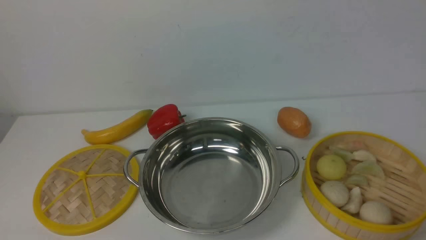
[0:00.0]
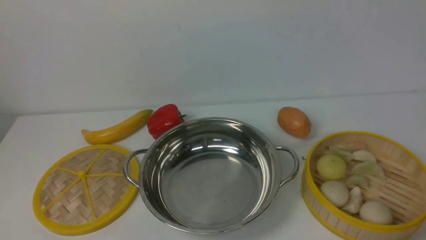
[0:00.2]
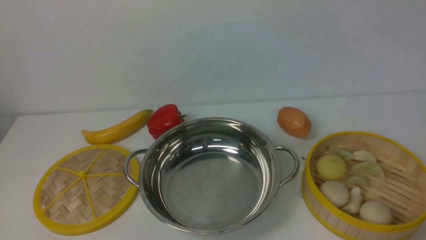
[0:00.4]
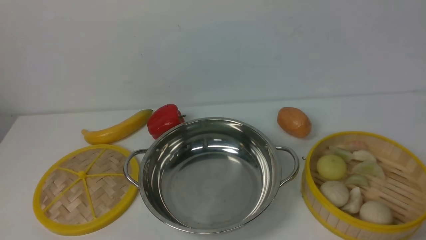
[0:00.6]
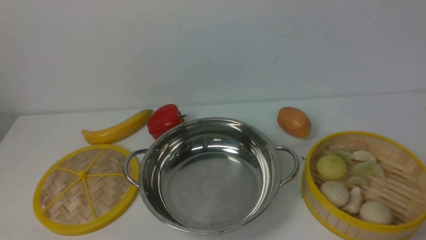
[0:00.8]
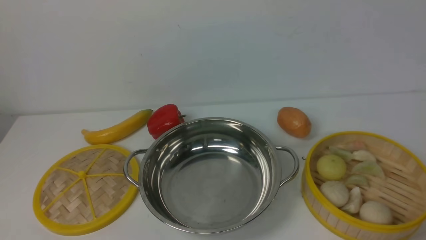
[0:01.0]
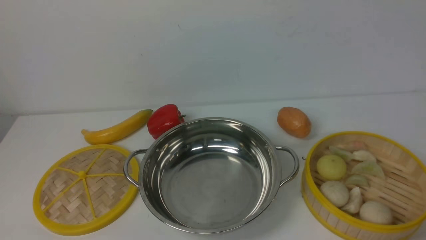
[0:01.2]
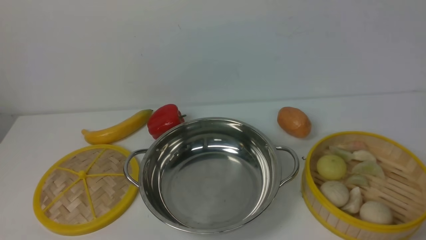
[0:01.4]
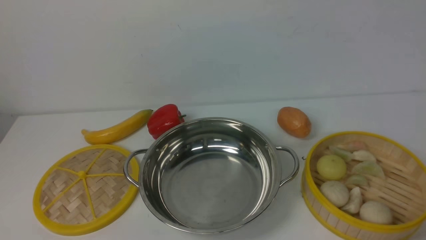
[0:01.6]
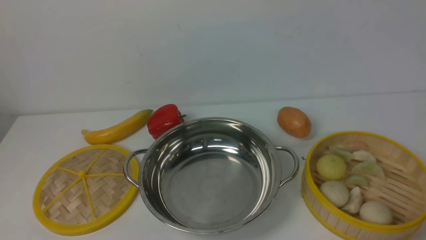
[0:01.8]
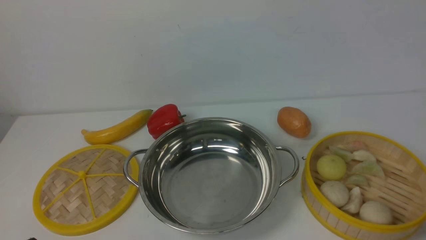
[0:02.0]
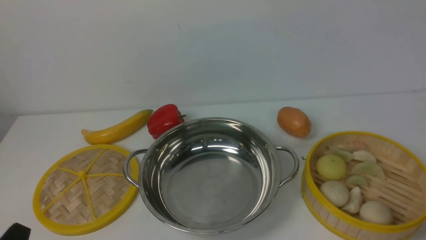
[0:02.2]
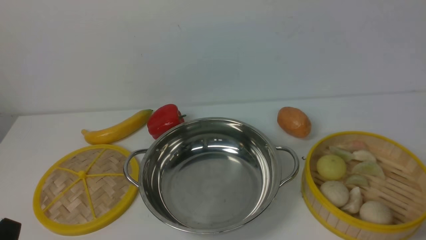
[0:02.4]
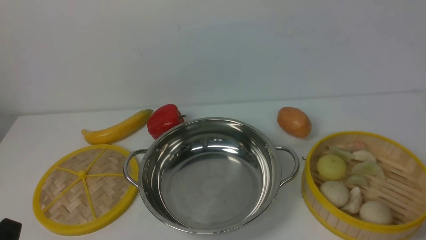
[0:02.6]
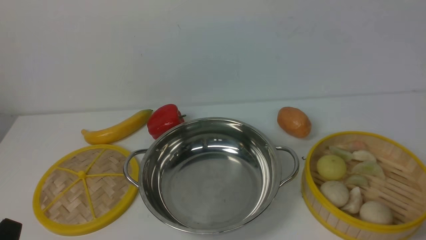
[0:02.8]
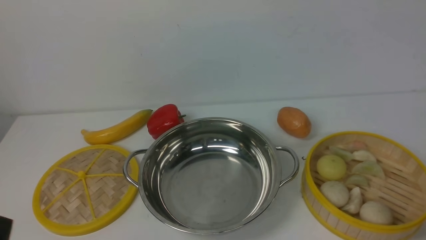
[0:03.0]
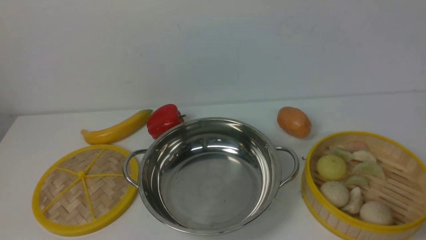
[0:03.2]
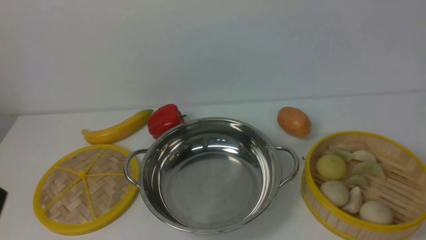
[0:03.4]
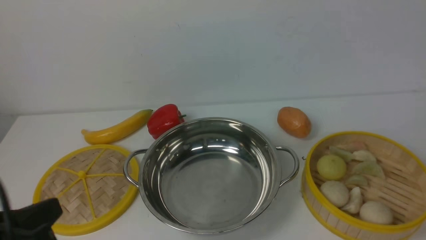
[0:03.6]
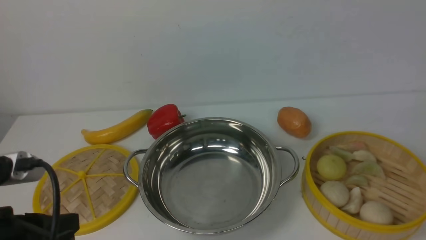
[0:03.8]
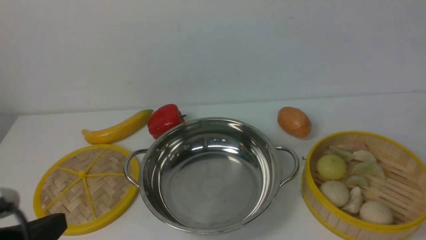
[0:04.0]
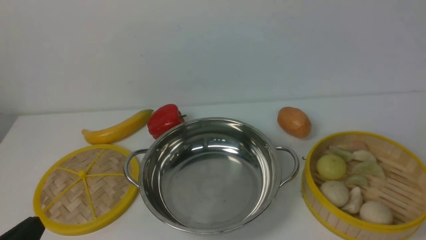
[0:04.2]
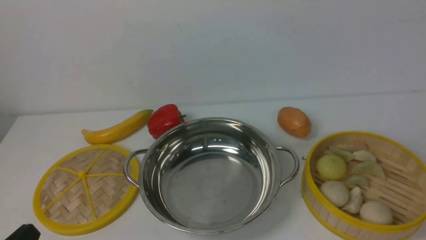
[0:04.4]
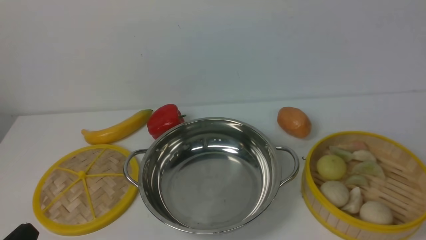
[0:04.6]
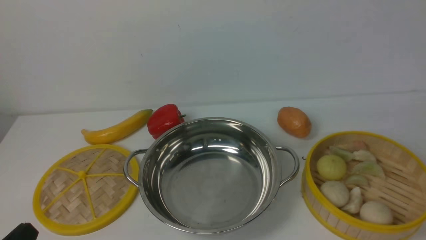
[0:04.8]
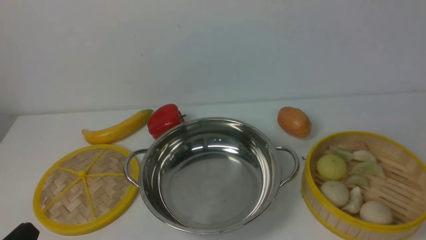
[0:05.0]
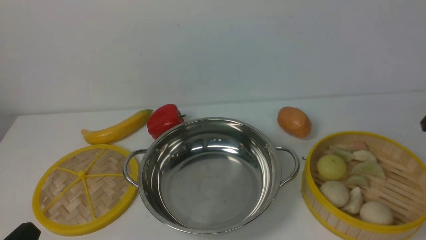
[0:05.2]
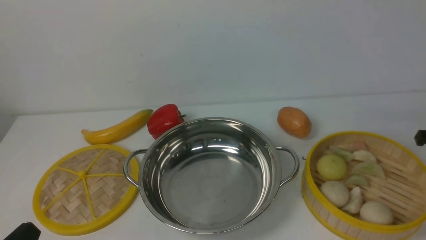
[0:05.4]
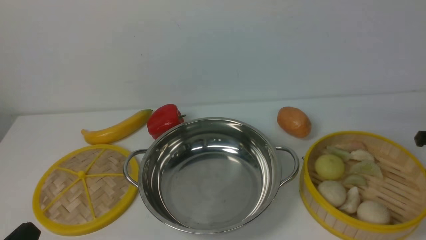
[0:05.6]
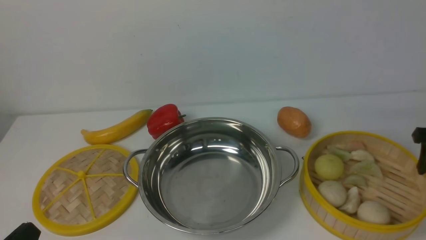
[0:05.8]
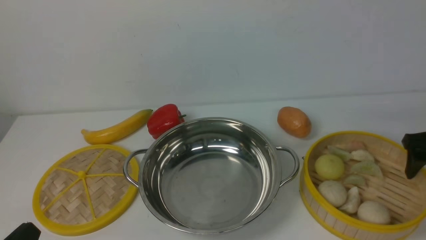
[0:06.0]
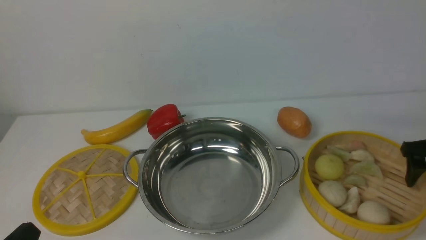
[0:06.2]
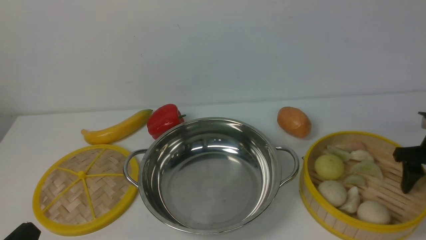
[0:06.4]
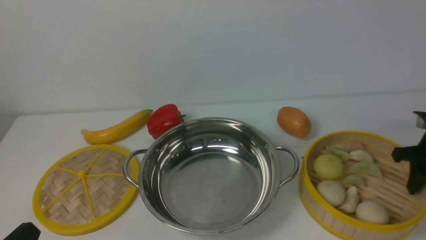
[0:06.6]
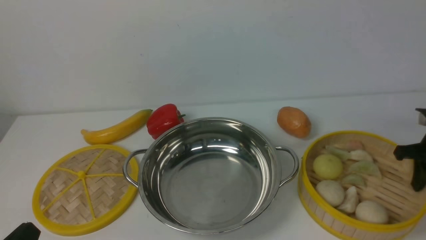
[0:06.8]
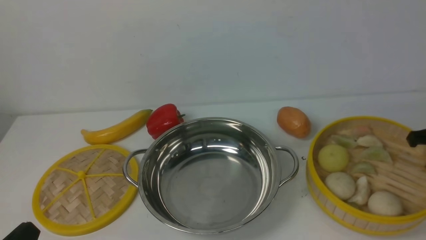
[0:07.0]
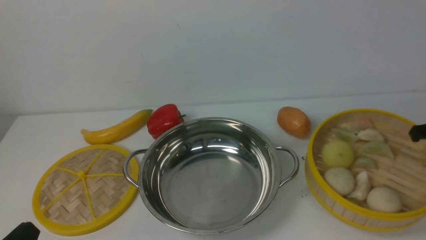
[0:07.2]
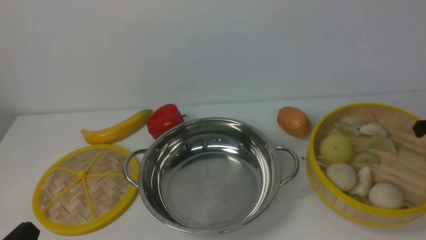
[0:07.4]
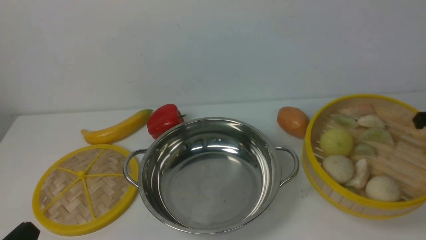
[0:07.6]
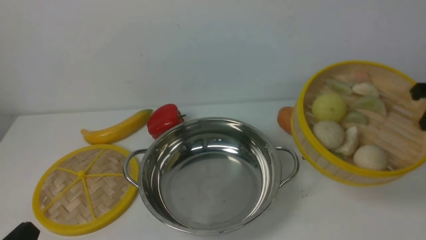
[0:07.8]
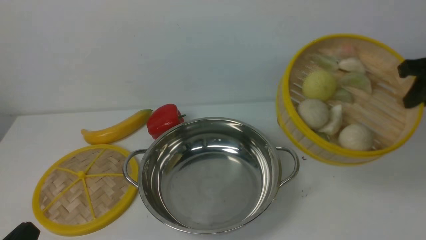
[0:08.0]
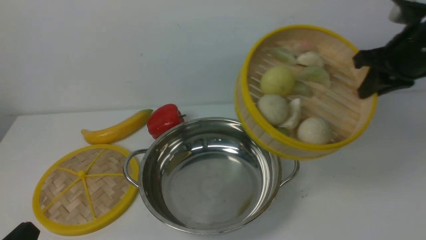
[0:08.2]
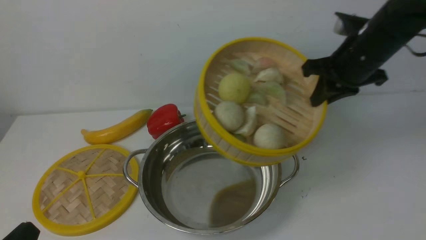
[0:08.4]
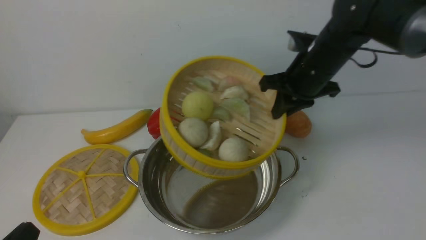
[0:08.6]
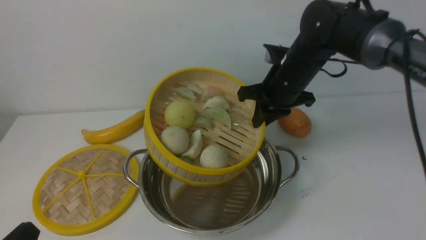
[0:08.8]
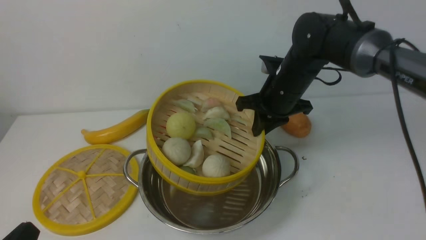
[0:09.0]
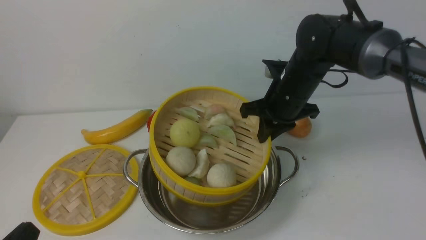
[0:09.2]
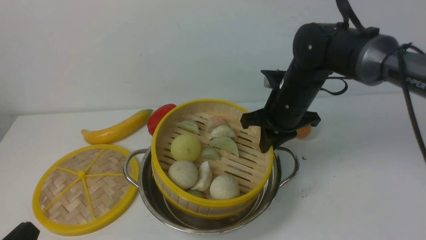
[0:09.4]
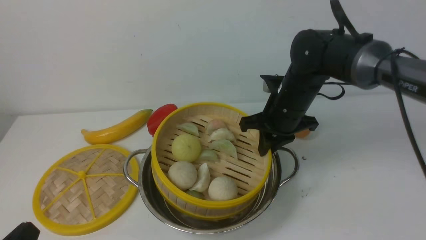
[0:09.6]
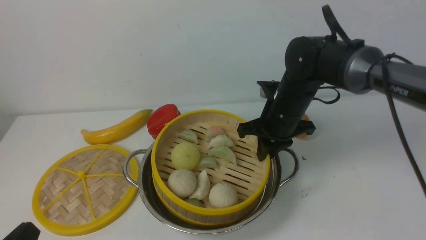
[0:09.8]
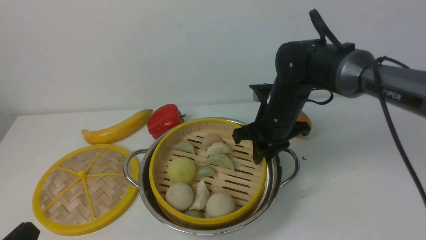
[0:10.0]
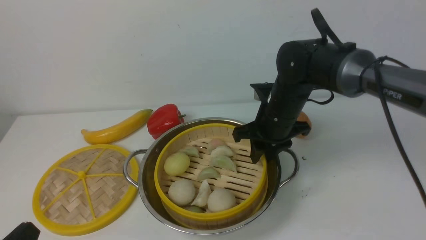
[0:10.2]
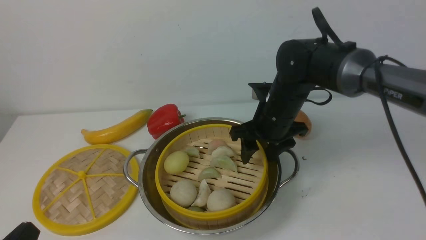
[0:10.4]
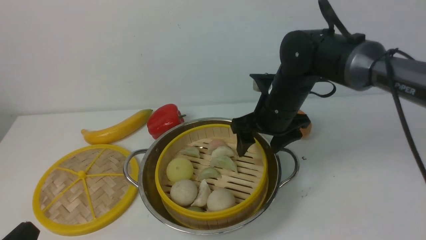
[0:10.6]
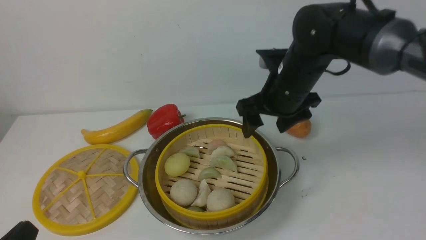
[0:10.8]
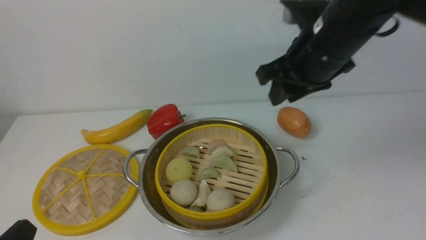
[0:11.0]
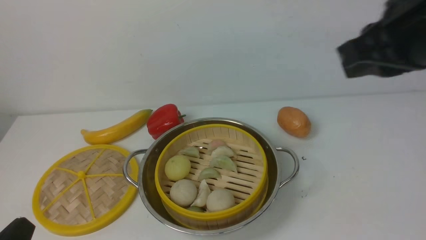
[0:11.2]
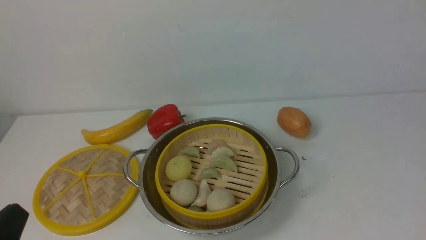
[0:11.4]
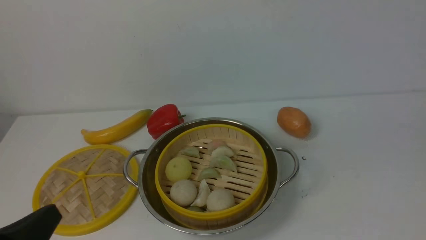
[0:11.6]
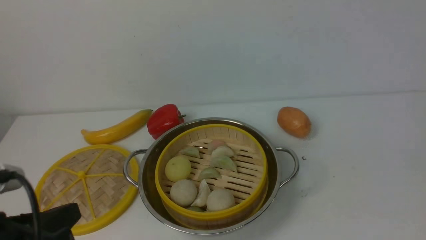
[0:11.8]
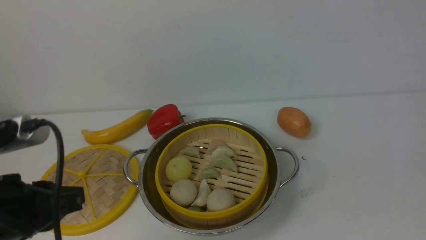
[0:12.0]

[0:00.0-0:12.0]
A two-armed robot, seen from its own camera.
Task of the whole recording: place the steamer in the pot on the white table, and put the lid on the steamer.
Step, 0:00.0 to 0:07.6: use the right arm to lift the steamer closest to it.
Step, 0:08.0 to 0:10.8: use the right arm to put the steamer into the iron steamer pot in the middle.
0:00.0 to 0:01.6: Neither gripper changes place.
0:04.4 to 0:06.0: The right gripper heads forward and downward, covering about 25 cm, and opens its fingers.
0:06.0 to 0:07.6: The right gripper goes roughly 5 cm upward, and closes its fingers.
0:07.6 to 0:09.0: The right gripper shifts roughly 25 cm to the left.
0:09.0 to 0:10.4: The right gripper opens its fingers.
0:10.4 to 0:12.0: The left gripper moves forward and upward, approximately 10 cm. Meanwhile the right gripper heads backward and to the right, covering roughly 40 cm, and closes its fingers.

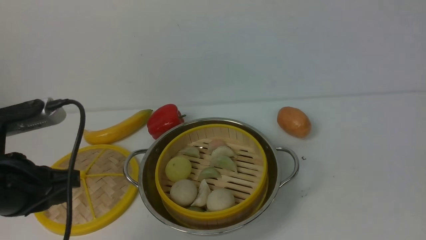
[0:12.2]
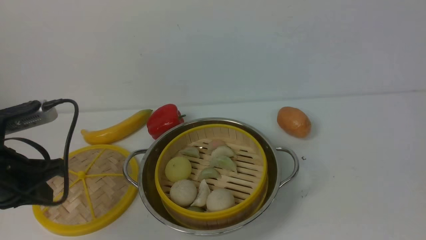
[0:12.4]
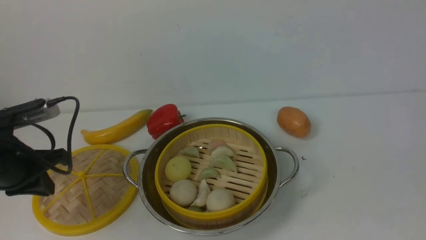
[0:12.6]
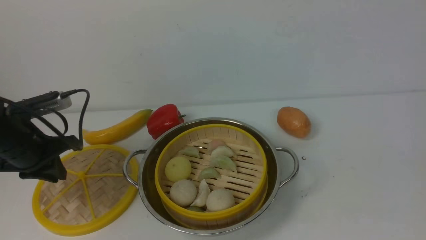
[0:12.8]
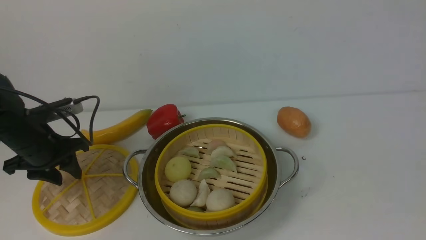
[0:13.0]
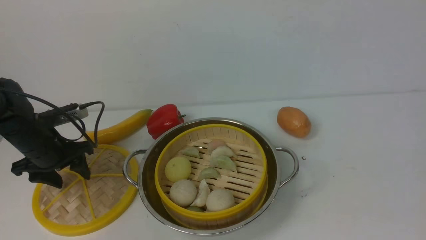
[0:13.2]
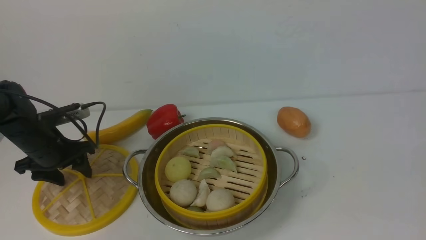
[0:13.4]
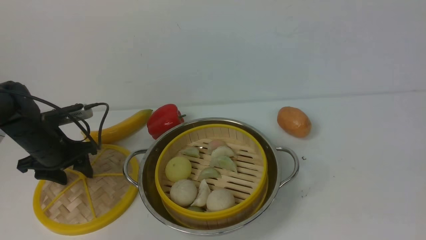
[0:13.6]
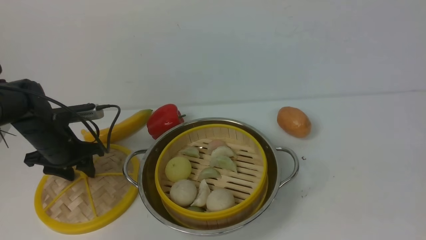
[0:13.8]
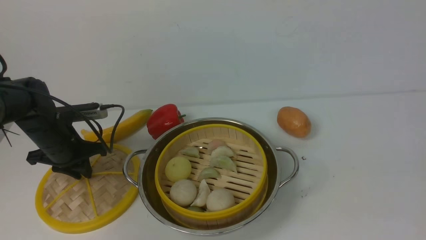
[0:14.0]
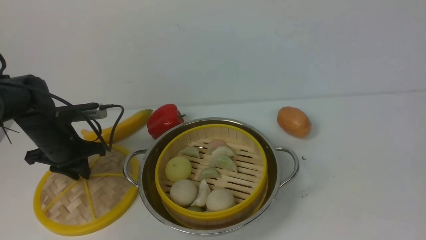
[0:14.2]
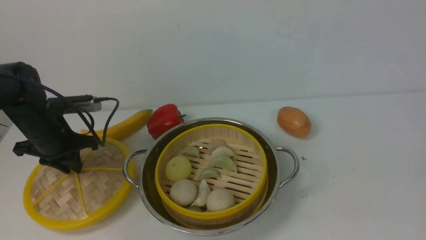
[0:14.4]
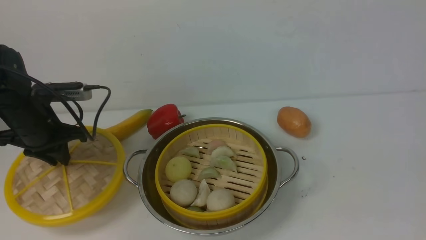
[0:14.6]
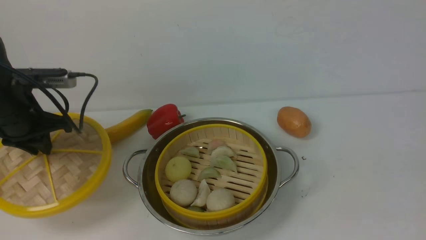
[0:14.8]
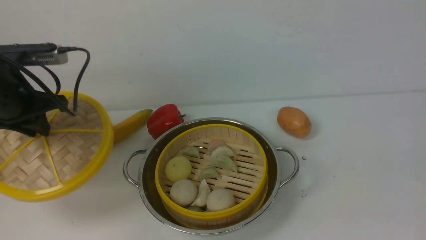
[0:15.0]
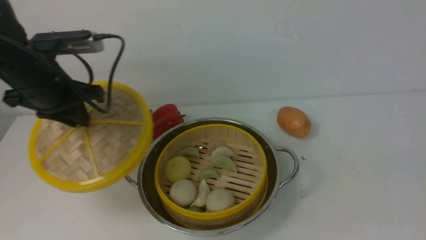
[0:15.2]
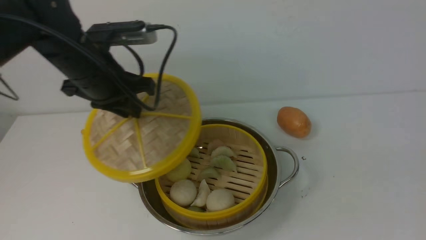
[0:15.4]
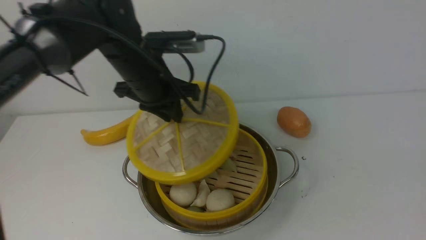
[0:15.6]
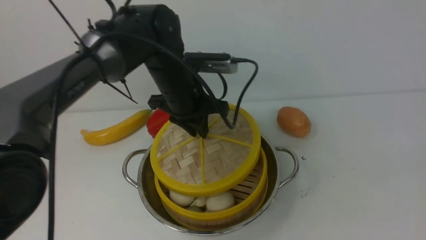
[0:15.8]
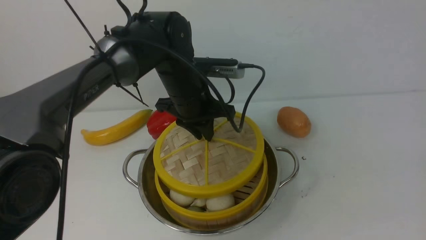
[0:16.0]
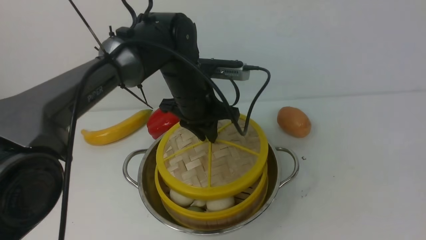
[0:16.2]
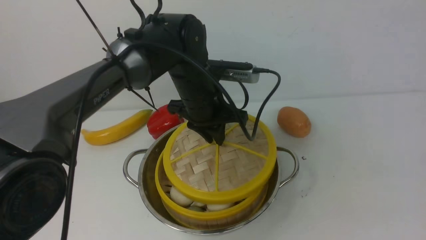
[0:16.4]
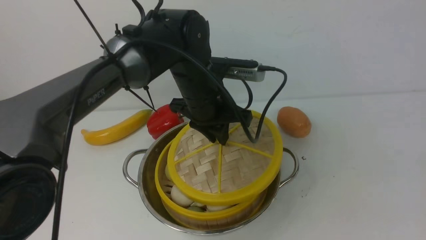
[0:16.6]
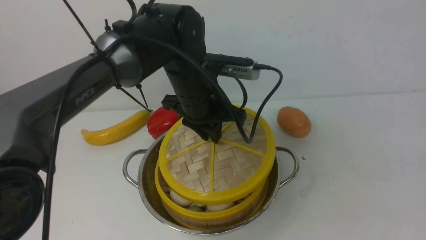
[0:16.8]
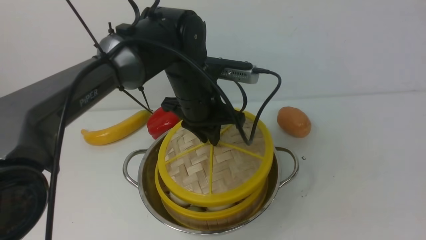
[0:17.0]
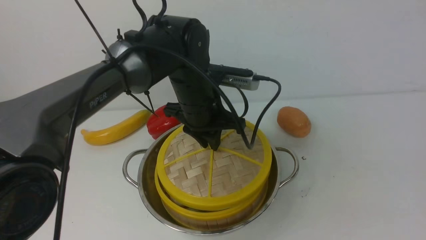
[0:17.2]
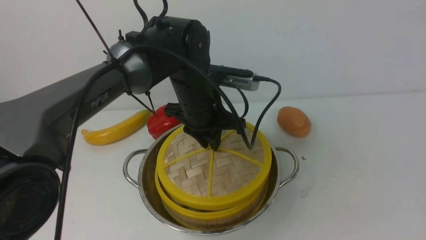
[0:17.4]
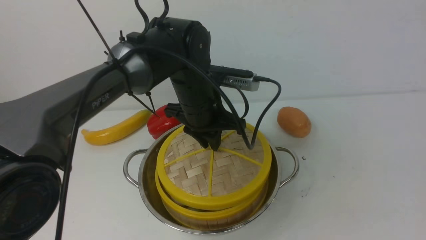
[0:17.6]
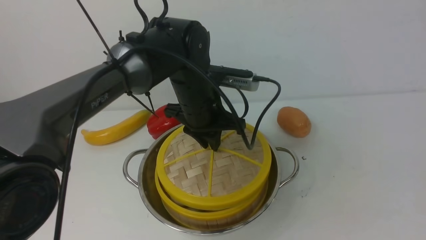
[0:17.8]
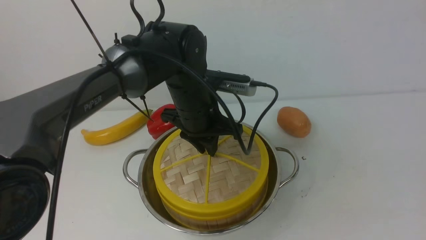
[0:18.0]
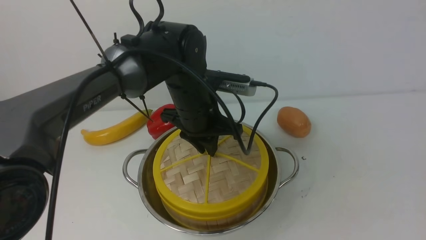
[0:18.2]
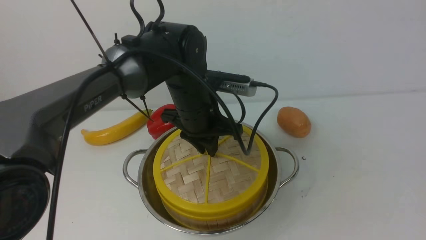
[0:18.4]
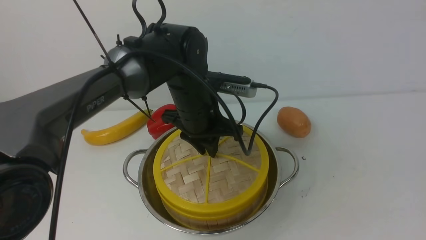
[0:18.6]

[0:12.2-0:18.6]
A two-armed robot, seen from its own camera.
Task of the whole recording: place the steamer in the pot on the white table, and put the lid on the steamer.
Step, 0:12.2 to 0:14.8: use the left arm to lift the lid of the steamer.
0:12.2 to 0:13.8: The left gripper travels forward and downward by about 25 cm, and opens up.
0:13.8 to 0:15.4: The left gripper heads upward and to the right, covering some 20 cm, and closes its fingers.
0:15.4 to 0:17.0: The left gripper is displaced to the right by roughly 15 cm.
0:17.0 to 0:18.6: The grippers make only small movements.
